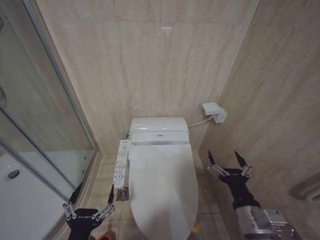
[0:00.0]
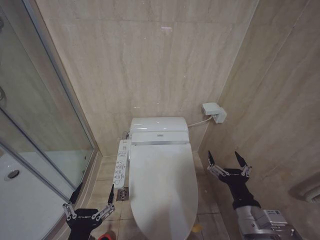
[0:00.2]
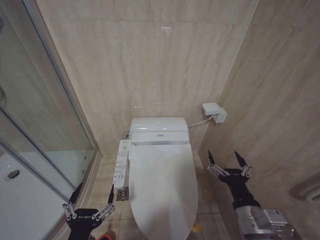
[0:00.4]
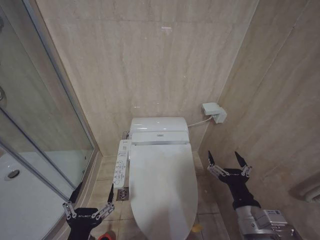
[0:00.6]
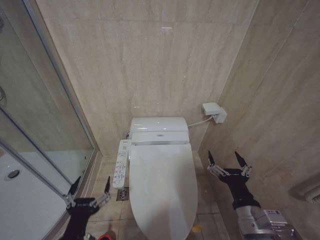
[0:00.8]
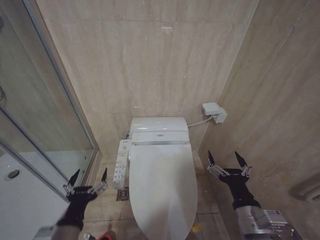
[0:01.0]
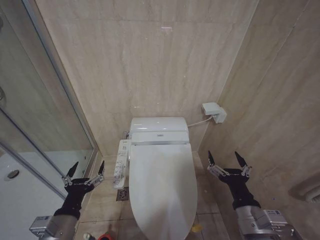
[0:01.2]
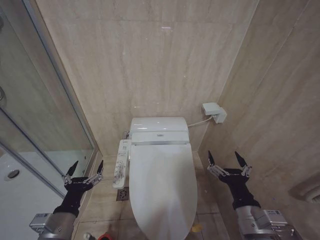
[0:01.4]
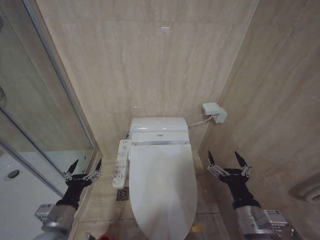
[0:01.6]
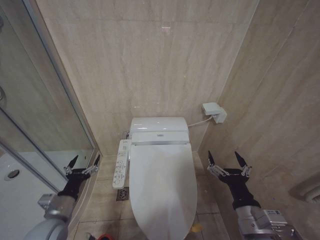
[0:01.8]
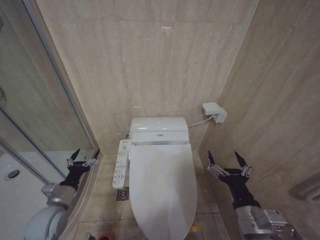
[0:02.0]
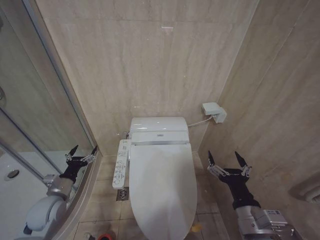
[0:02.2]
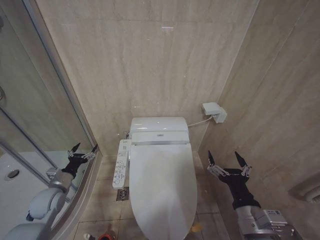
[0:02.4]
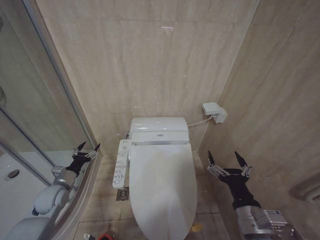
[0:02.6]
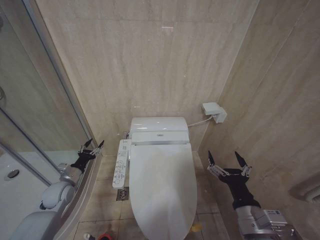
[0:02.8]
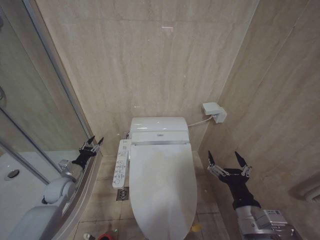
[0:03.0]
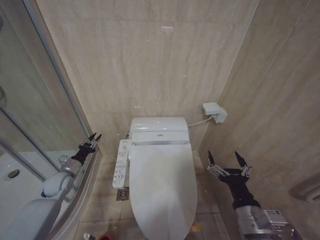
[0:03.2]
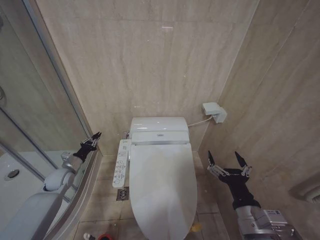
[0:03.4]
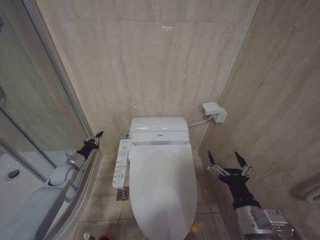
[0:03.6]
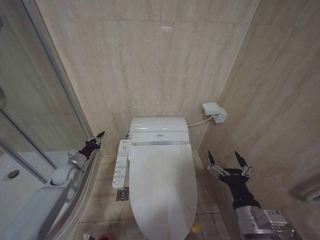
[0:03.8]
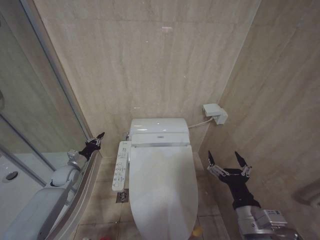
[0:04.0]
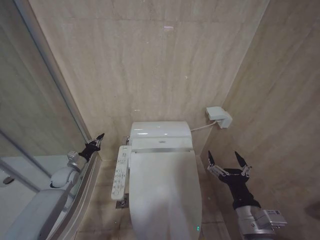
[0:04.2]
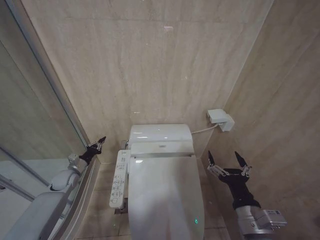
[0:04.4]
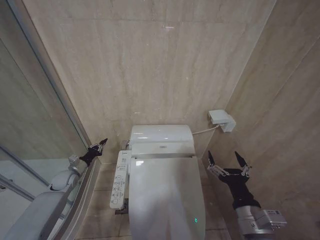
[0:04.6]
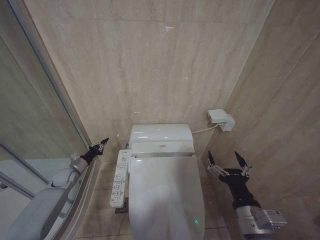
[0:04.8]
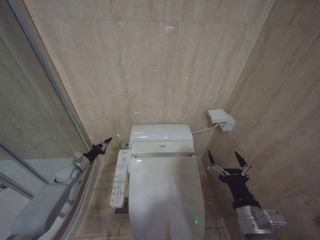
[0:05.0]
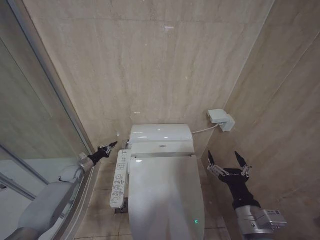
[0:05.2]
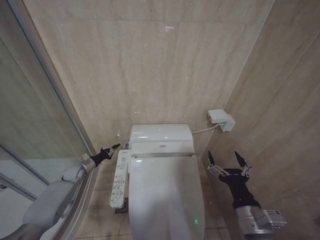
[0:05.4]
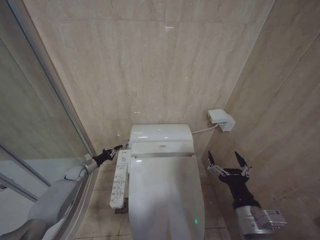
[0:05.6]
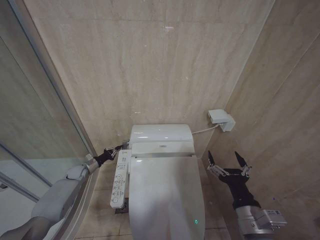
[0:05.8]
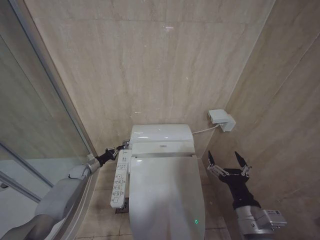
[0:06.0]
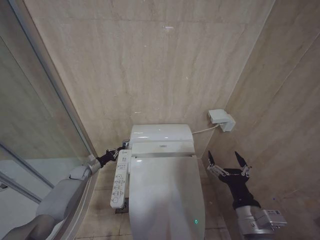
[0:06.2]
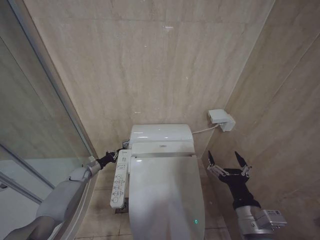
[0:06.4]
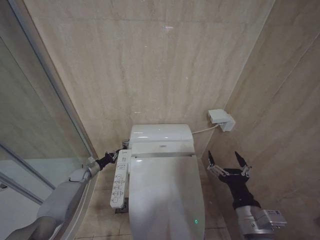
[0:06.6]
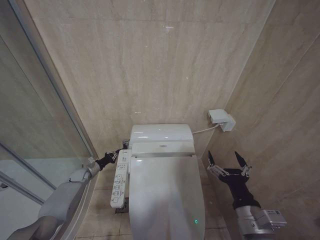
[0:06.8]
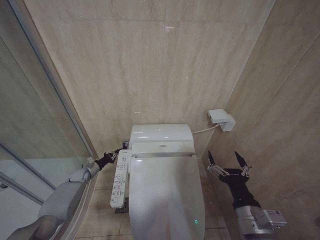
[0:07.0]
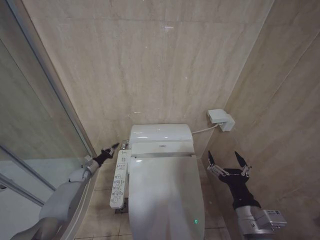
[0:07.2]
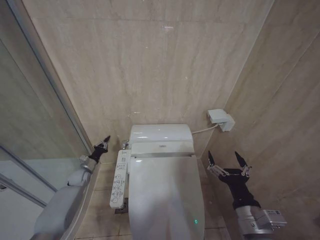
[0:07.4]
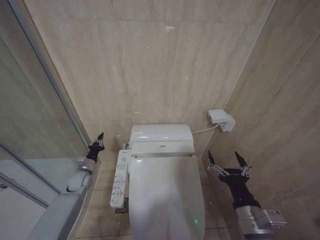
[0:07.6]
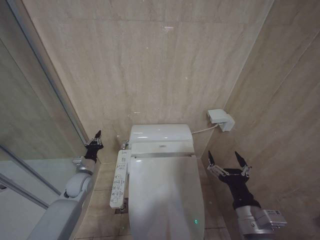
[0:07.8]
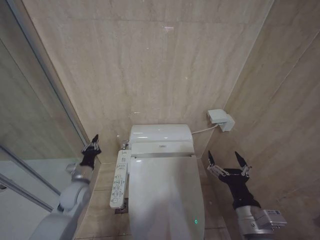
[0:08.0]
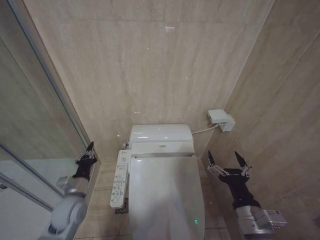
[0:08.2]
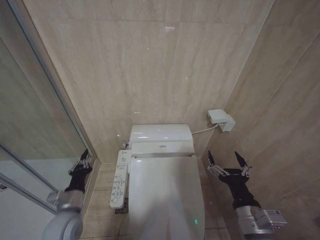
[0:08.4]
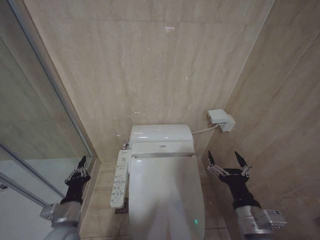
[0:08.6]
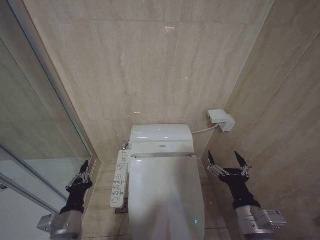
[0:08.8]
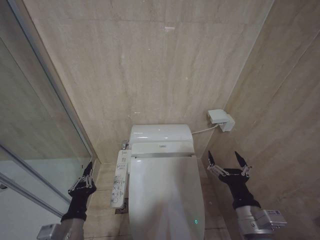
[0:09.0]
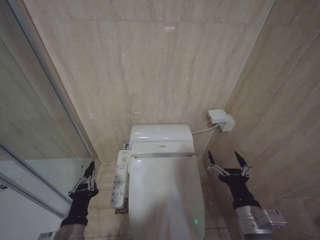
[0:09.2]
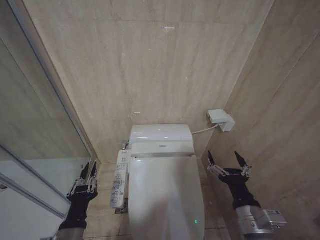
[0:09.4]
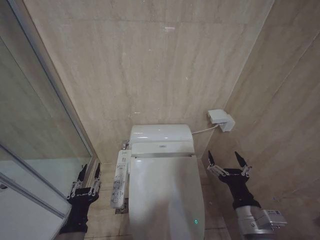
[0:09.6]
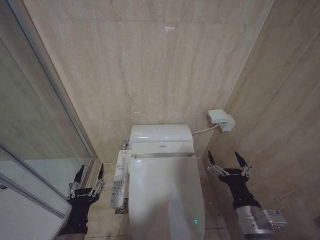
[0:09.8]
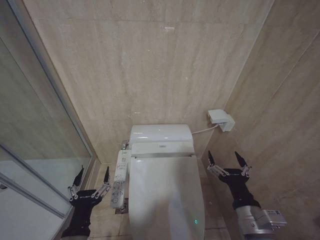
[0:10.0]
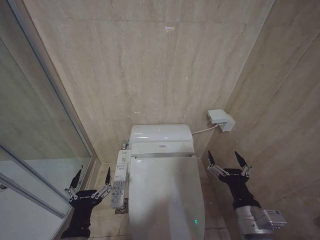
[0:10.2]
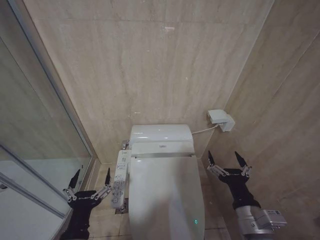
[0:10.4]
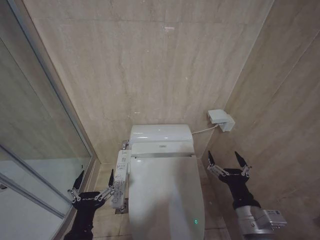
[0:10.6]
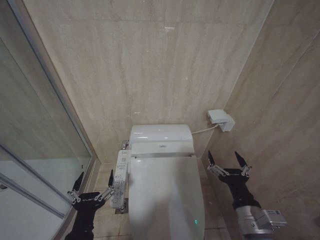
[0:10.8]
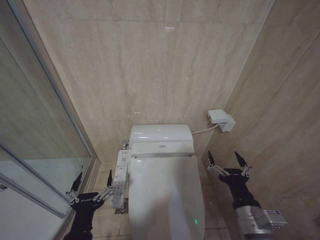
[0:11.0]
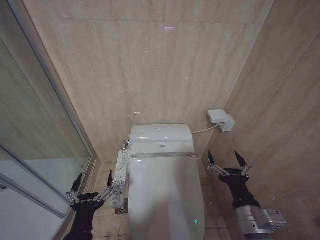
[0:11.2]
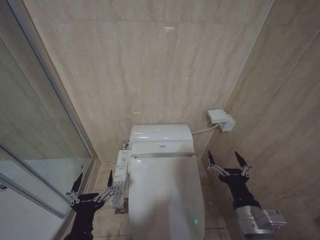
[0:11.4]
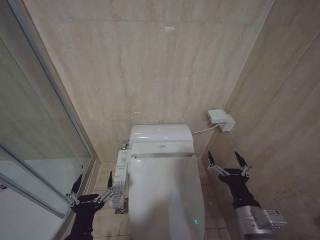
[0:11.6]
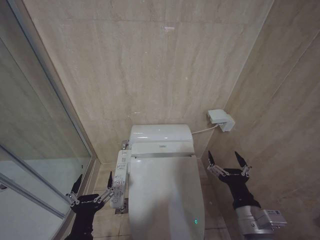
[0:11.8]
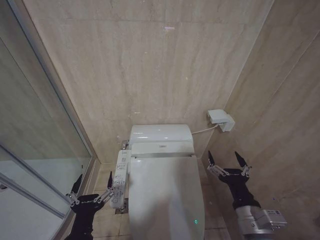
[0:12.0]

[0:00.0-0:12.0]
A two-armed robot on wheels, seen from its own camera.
Task of the whole recording: Open the toilet lid, clean the toilet bowl with a toilet brush, close the toilet lid, and flush.
0:00.0 to 0:01.6: The left gripper shifts some 15 cm forward and to the left.
0:01.6 to 0:03.0: The left gripper travels forward and to the left by roughly 20 cm.
0:03.0 to 0:04.4: The left gripper moves forward, some 5 cm, and closes.
0:04.4 to 0:06.0: The left gripper heads forward and downward, covering roughly 10 cm.
0:06.0 to 0:07.6: The left gripper travels backward by about 5 cm.
0:07.6 to 0:09.0: The left gripper moves backward, approximately 30 cm.
0:09.0 to 0:10.4: The left gripper shifts roughly 5 cm backward, and opens.
0:10.4 to 0:12.0: The grippers move only a little.

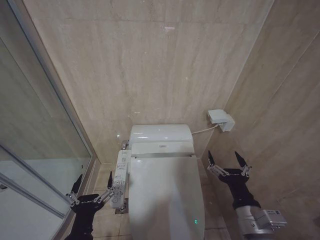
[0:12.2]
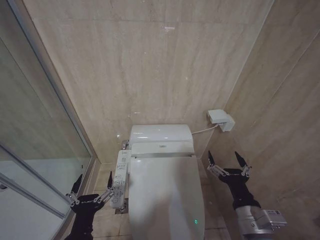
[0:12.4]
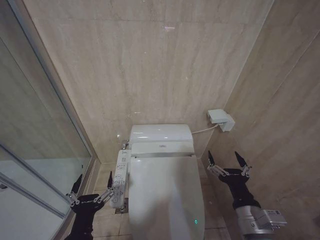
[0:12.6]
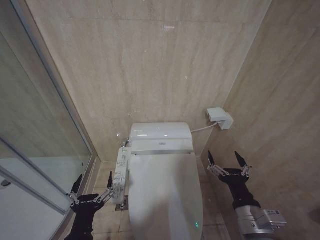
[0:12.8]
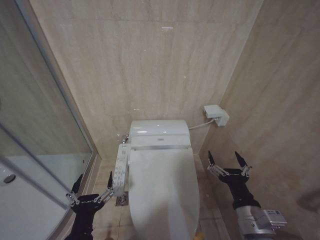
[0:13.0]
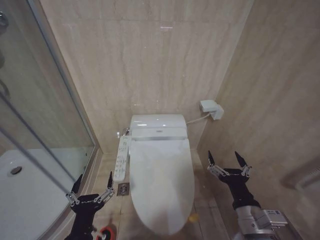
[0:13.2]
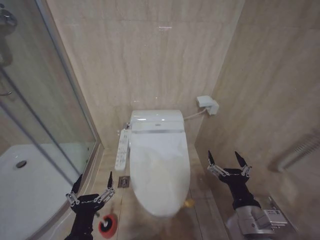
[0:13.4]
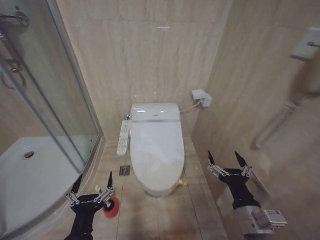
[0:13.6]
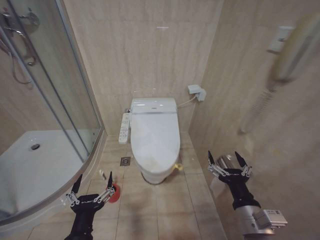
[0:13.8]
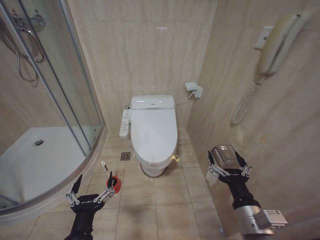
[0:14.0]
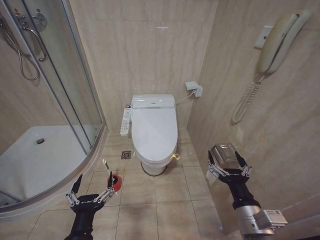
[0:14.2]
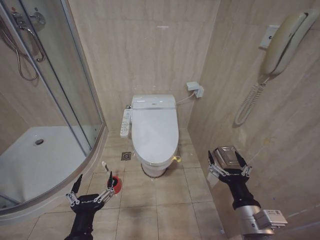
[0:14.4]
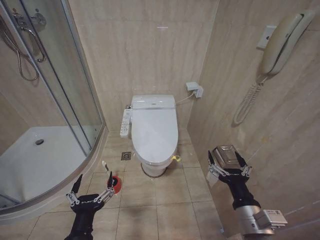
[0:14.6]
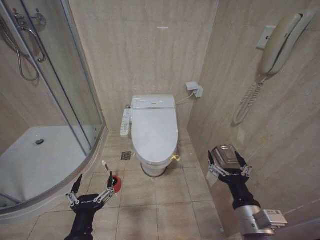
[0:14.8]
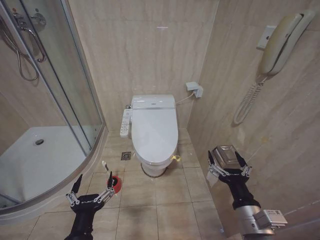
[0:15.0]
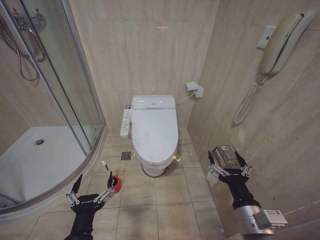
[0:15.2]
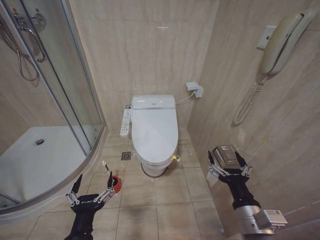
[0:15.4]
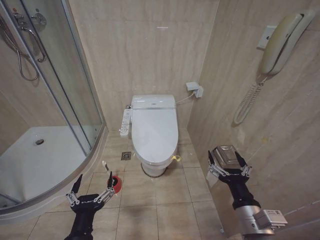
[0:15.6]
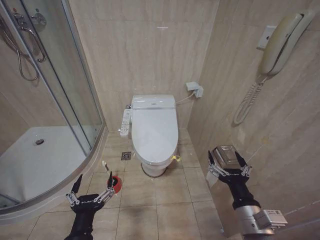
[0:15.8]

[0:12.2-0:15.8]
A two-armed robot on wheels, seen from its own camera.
Task of the whole recording: Open the toilet lid, clean the toilet bowl with a toilet brush, close the toilet lid, and flush.
0:14.0 to 0:15.8: Both grippers stay put.
